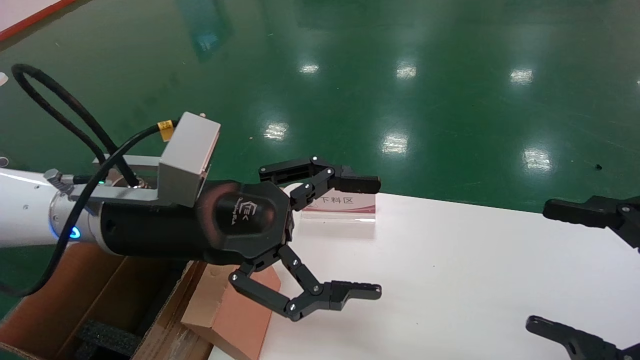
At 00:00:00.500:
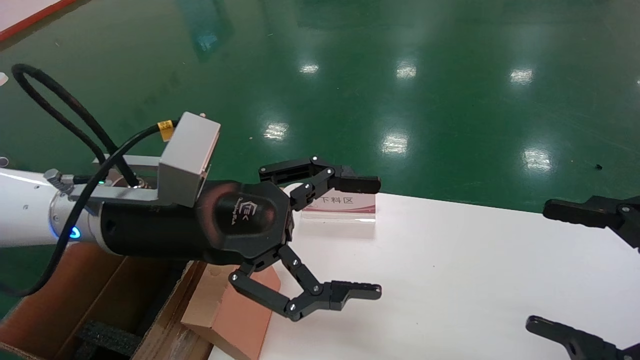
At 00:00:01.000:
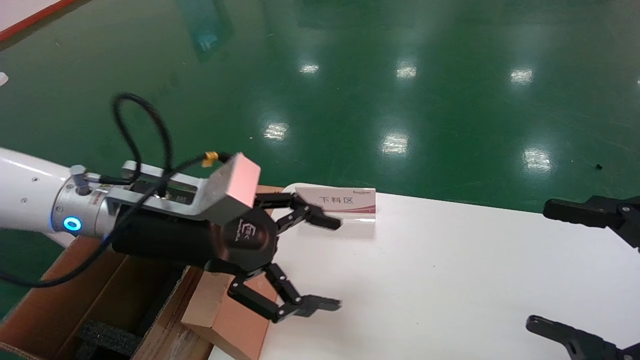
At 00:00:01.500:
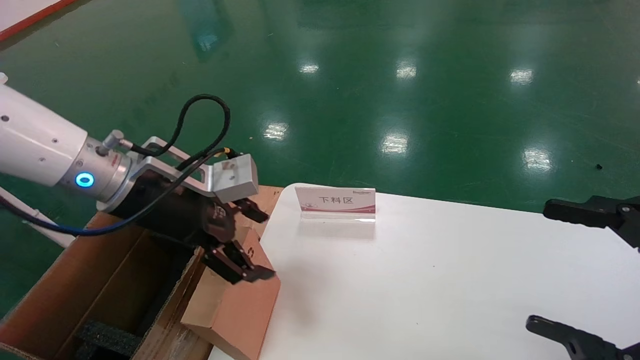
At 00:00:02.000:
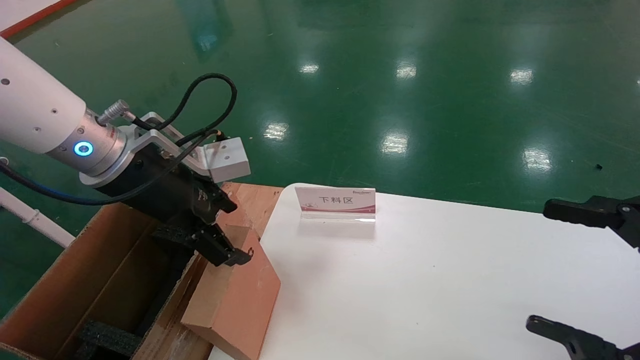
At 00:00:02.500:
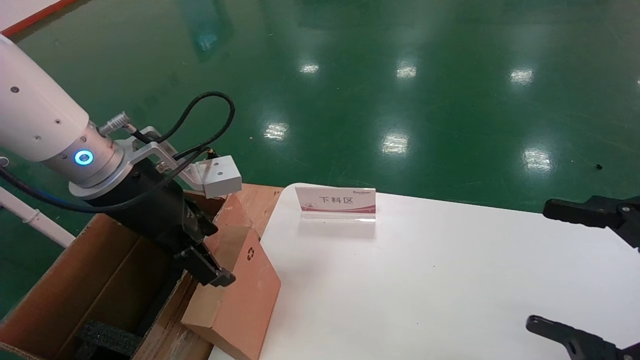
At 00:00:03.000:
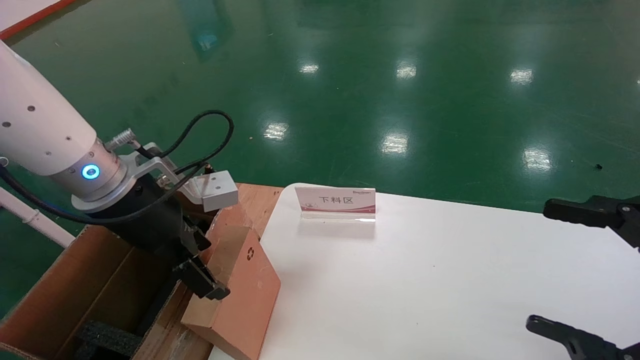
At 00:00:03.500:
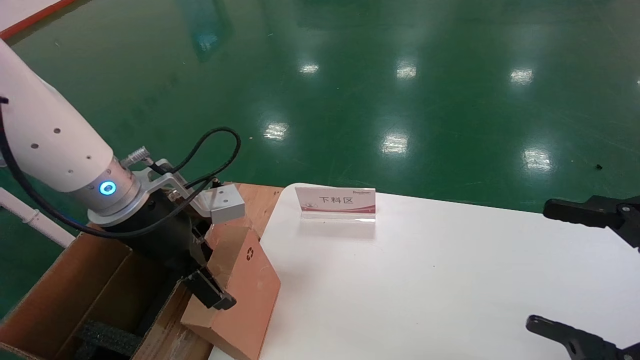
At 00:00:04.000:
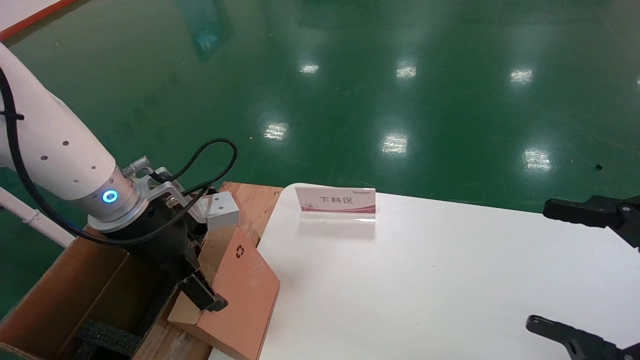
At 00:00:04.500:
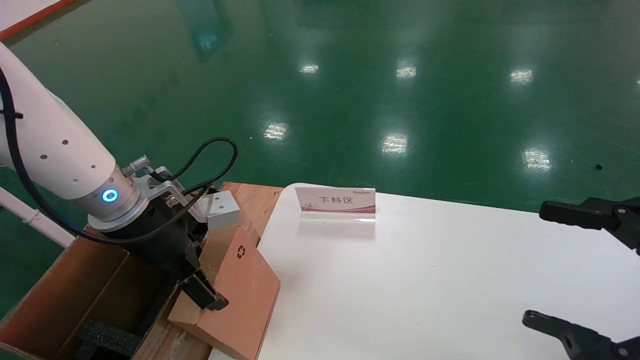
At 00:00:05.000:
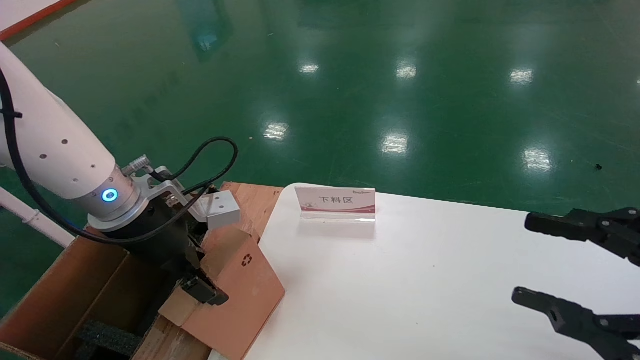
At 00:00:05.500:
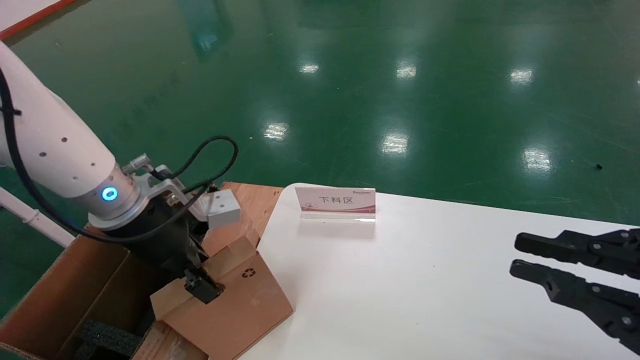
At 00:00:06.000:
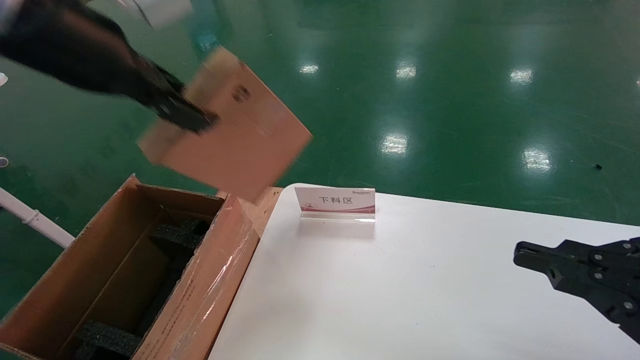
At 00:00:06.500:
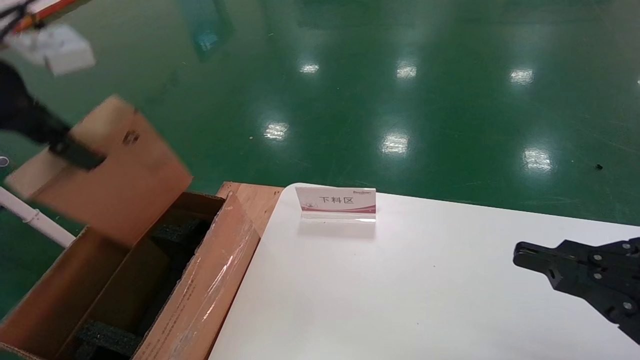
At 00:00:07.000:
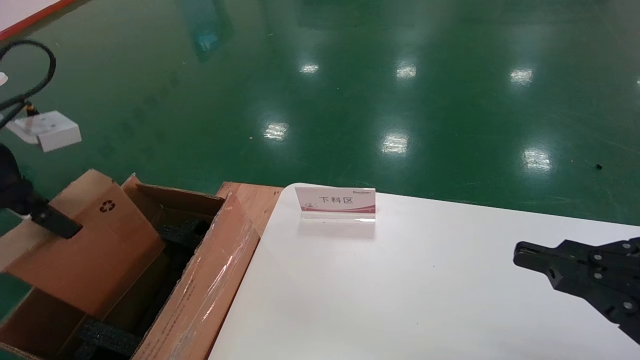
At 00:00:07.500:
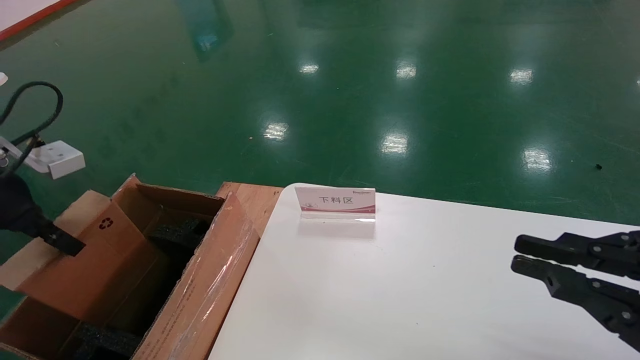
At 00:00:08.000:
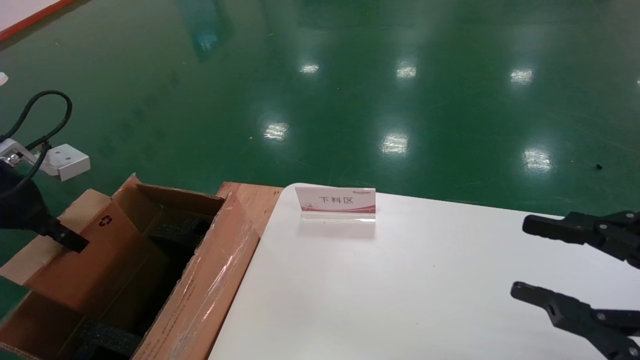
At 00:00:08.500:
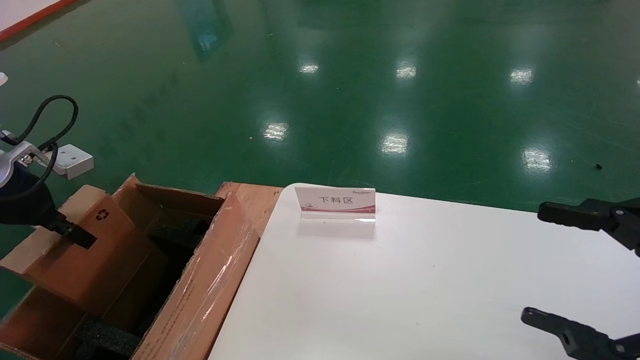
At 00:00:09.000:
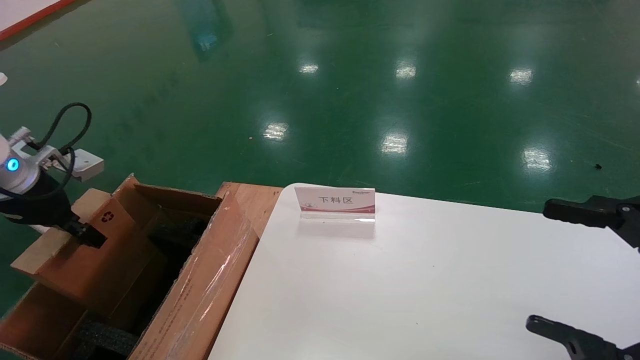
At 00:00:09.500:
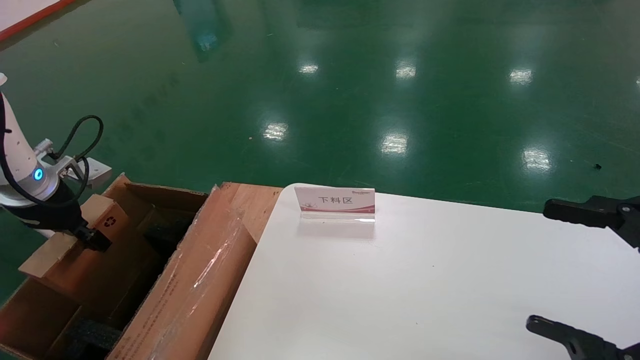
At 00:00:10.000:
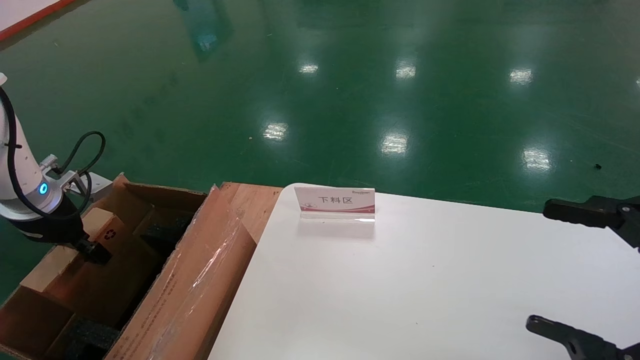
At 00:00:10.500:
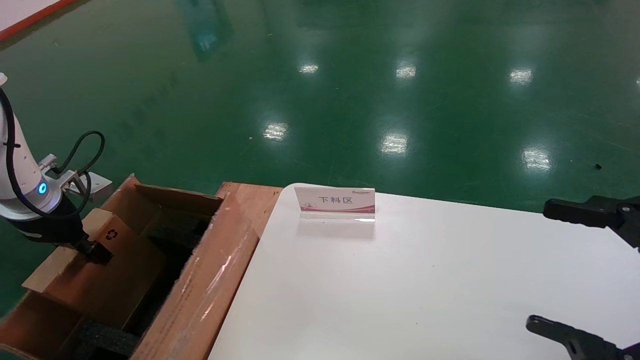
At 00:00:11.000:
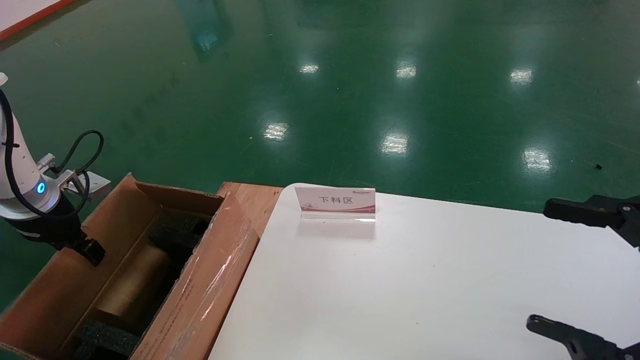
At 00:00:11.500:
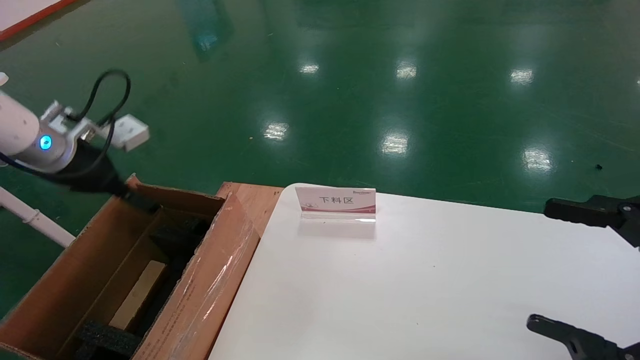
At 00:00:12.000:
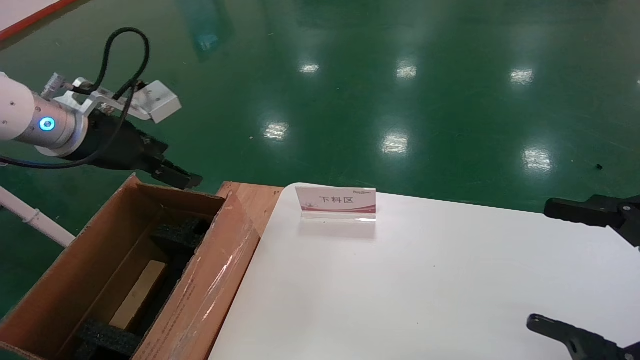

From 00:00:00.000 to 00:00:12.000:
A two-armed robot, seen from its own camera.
Task of the whole recording: pick up the small cardboard box and load it into the large cardboard box.
Step, from 00:00:01.000 to 00:00:06.000: Pick up the mouse and power cord box.
Step, from 00:00:06.500 to 00:00:11.000: Place the mouse and power cord box into the case.
From 00:00:00.000 to 00:00:02.000: The left gripper travels to the left by approximately 5 cm.
From 00:00:02.000 to 00:00:04.000: The left gripper shifts some 5 cm downward.
From 00:00:04.000 to 00:00:06.000: The right gripper closes up, while the left gripper is displaced upward by some 20 cm, and closes its fingers.
From 00:00:06.000 to 00:00:08.000: The left gripper goes roughly 20 cm to the left and downward.
From 00:00:08.000 to 00:00:10.000: The left gripper travels downward and forward by about 10 cm; the right gripper opens up.
From 00:00:10.000 to 00:00:12.000: The left gripper goes about 15 cm to the right and upward, and opens up.

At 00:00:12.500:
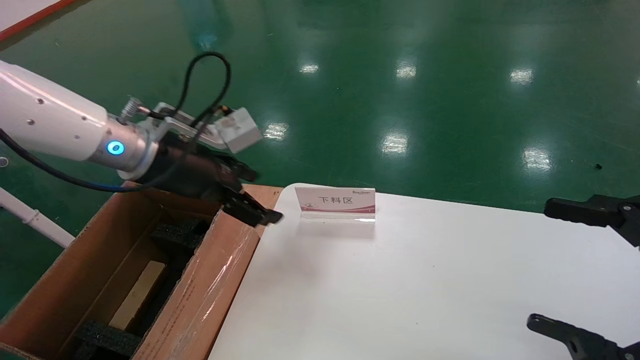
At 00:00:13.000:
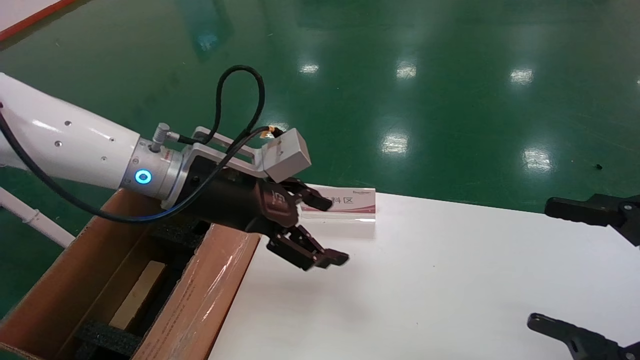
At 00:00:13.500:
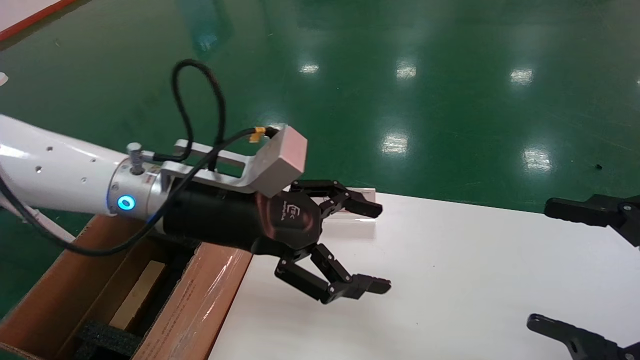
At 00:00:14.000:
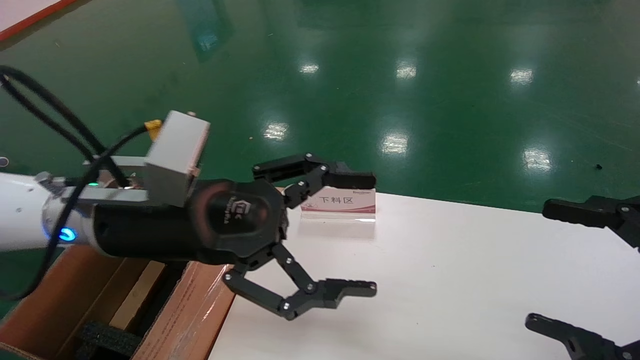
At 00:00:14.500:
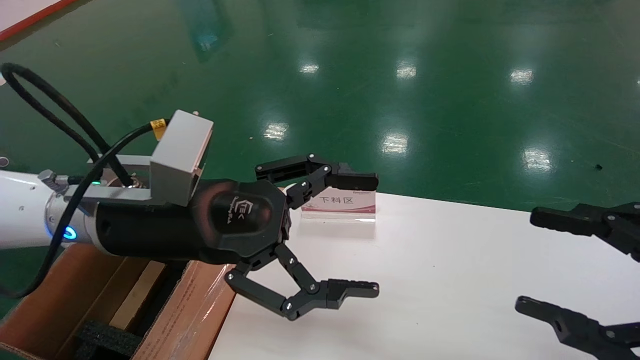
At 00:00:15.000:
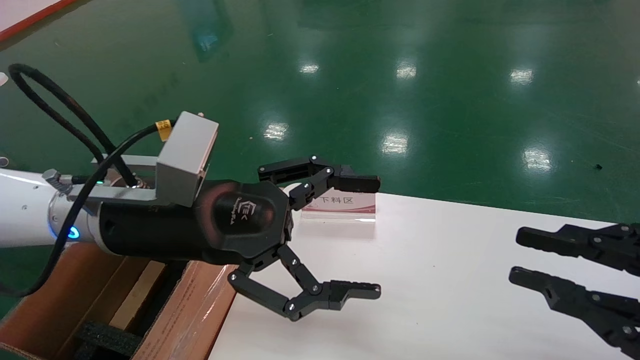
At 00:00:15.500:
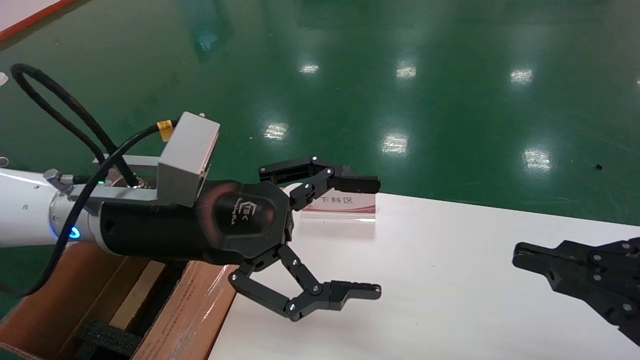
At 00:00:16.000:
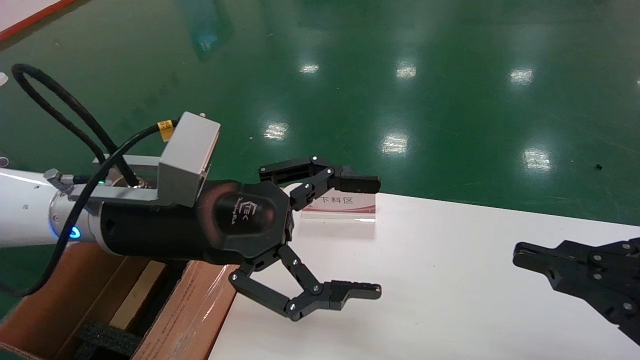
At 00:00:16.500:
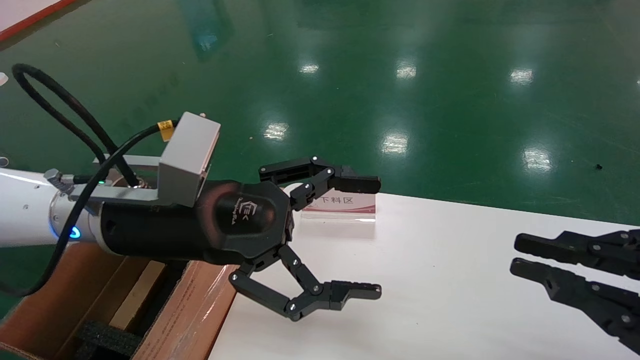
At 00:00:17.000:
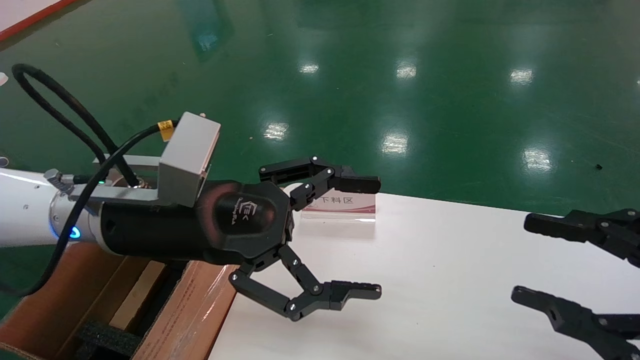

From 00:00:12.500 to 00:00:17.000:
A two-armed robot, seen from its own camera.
Task of the whole recording: pick up the small cardboard box and load it into the large cardboard box.
From 00:00:12.500 to 00:00:14.500: The left gripper moves backward and to the right, approximately 10 cm.
From 00:00:14.500 to 00:00:17.000: The right gripper closes up.
